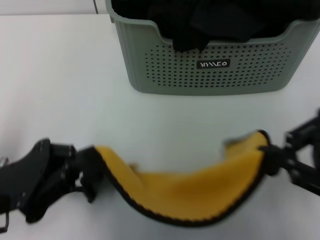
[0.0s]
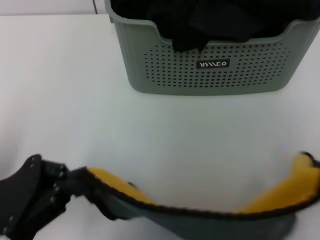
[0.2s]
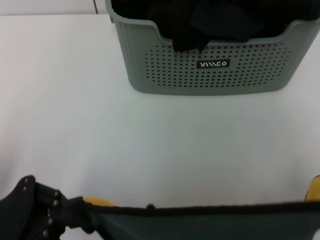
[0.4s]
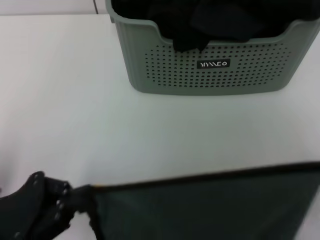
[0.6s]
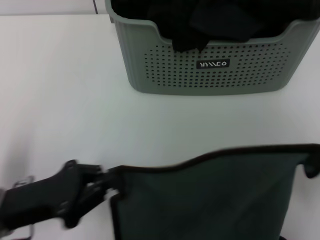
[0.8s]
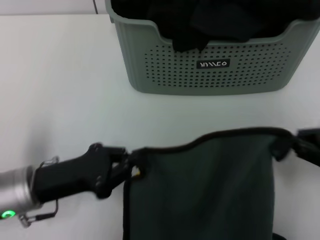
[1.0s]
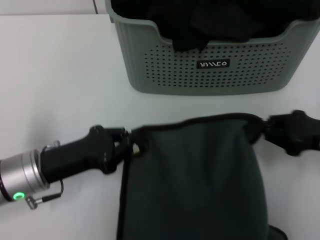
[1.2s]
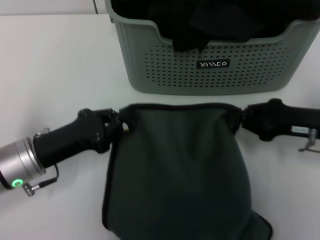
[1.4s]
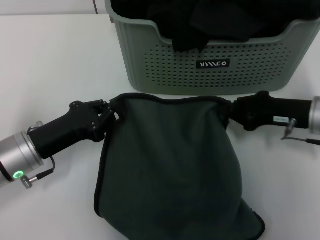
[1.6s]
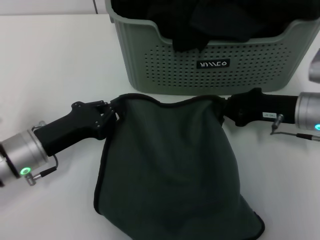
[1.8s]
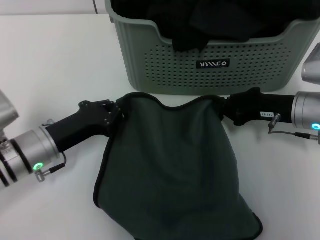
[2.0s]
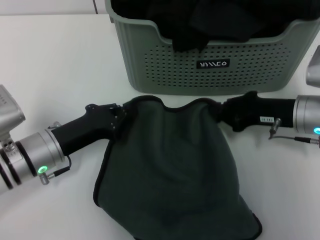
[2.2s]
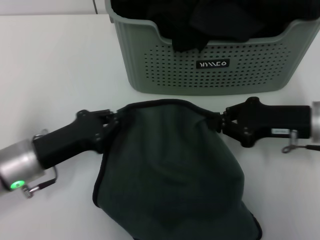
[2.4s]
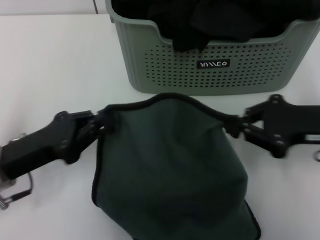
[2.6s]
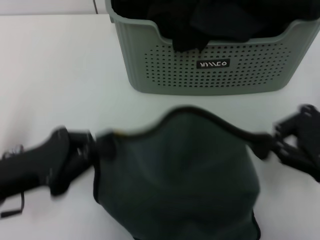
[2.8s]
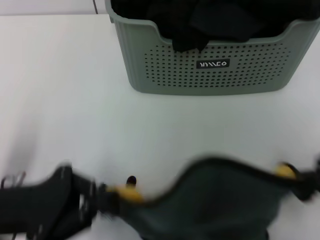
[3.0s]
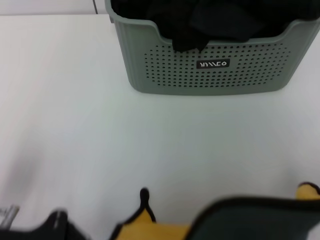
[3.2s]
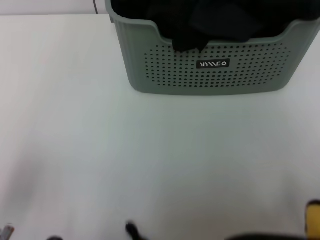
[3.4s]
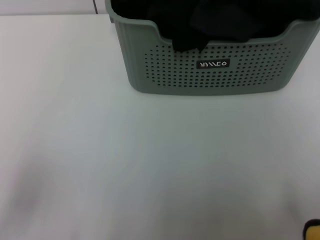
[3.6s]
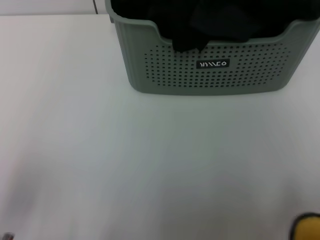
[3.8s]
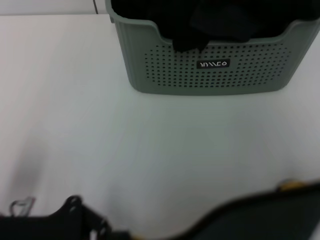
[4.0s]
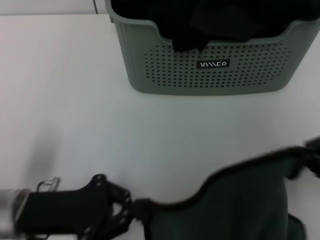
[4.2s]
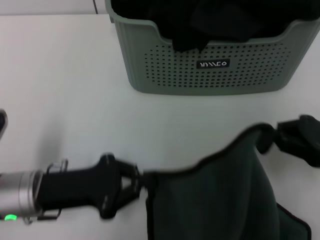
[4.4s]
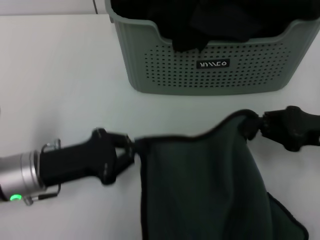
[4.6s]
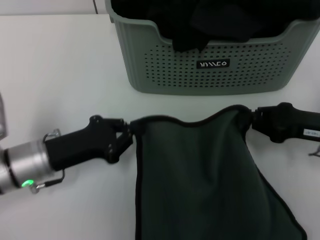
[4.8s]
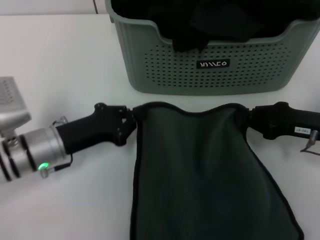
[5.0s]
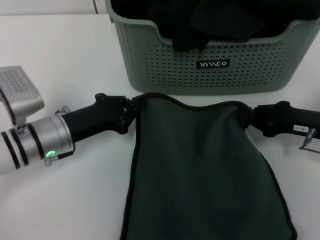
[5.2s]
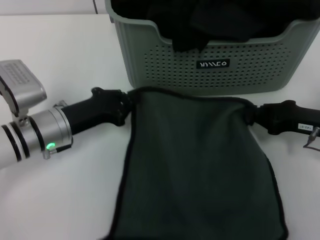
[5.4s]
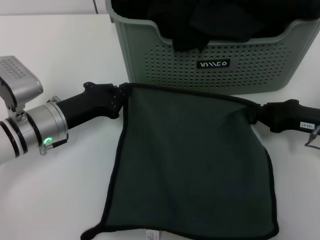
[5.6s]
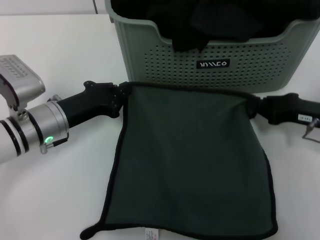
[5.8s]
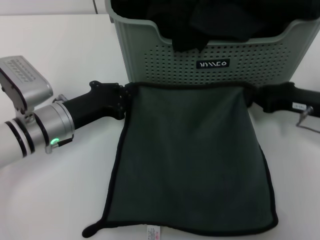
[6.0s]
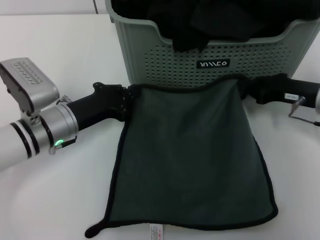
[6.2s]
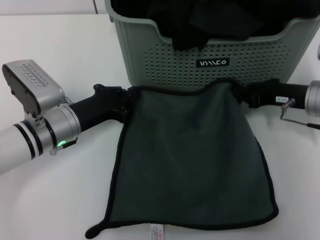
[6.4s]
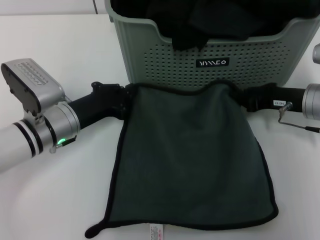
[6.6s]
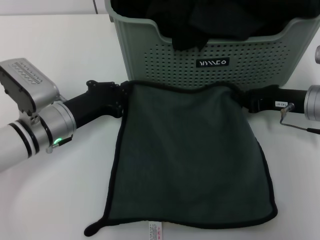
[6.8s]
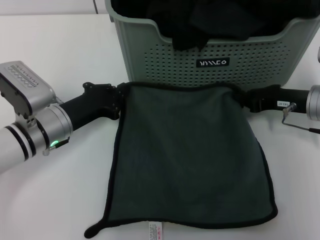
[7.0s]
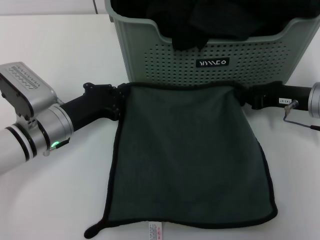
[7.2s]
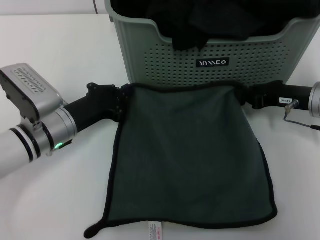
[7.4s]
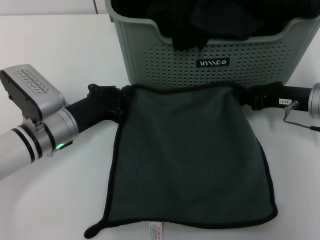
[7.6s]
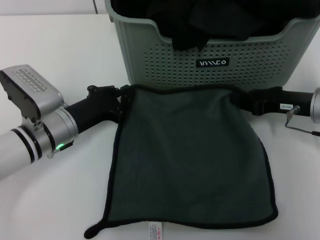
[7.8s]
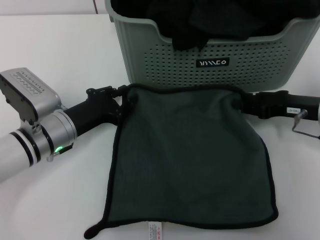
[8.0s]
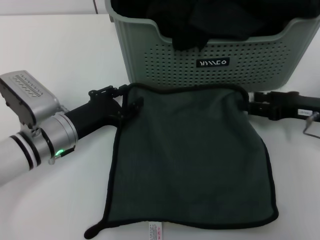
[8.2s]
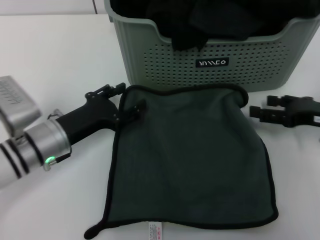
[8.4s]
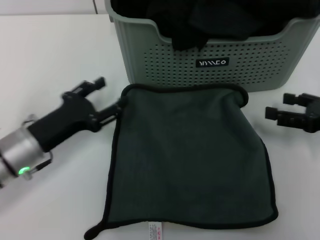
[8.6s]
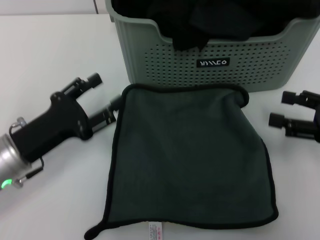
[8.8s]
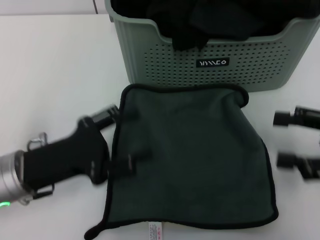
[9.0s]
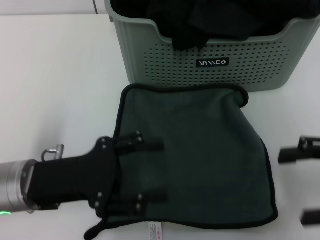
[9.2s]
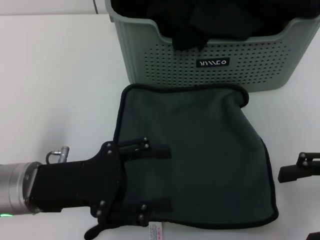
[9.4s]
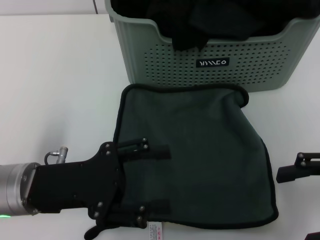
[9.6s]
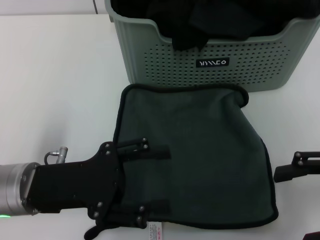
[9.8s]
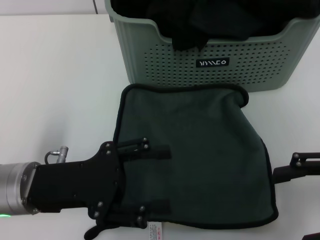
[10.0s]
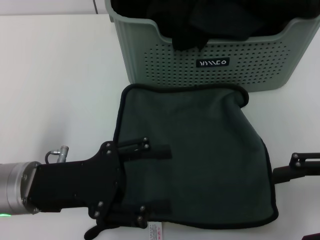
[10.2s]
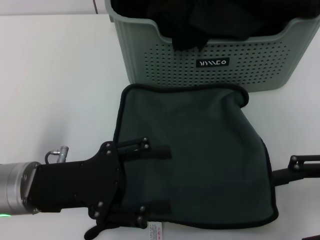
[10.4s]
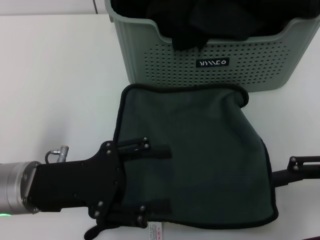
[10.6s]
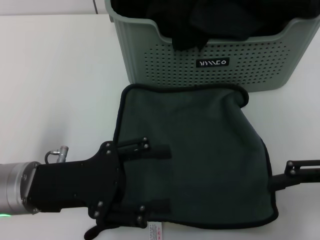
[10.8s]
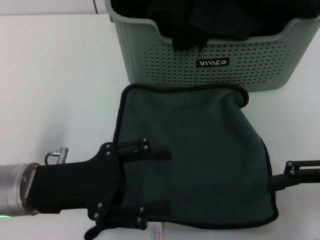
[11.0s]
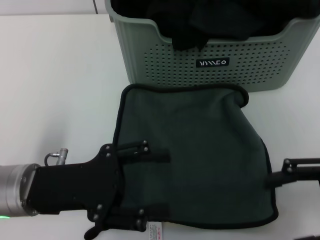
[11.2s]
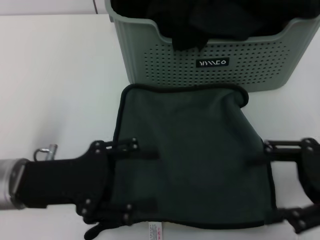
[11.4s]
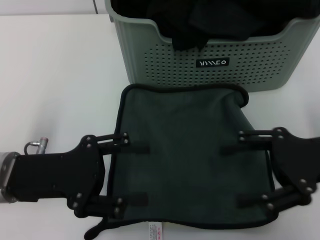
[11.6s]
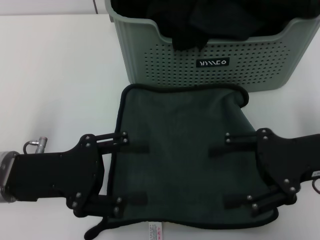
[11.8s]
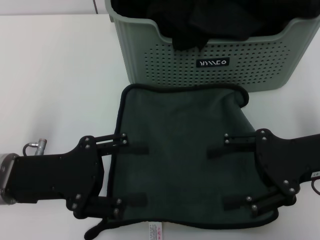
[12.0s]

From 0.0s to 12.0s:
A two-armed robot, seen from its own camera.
Task of the whole recording: pick up the towel from the storage box and lay it flat on the table.
Step, from 0.0s to 8.2s: Spread the towel flat with the left gripper.
From 0.0s to 1.6s: The left gripper moves forward and downward, about 10 cm, while the right gripper moves downward and forward, roughly 20 cm.
From 1.6s to 3.0s: The left gripper is displaced backward and upward by approximately 10 cm; the right gripper heads backward, upward and to the right, covering approximately 15 cm.
From 3.0s to 4.4s: The right gripper moves downward, roughly 10 cm, while the left gripper goes backward and returns, about 5 cm each way.
From 4.4s to 6.0s: Both grippers travel together forward, some 10 cm.
From 6.0s to 7.6s: The grippers make only small movements.
From 7.6s to 9.0s: The right gripper shifts roughly 15 cm backward, upward and to the right, and opens its fingers. Meanwhile the left gripper moves backward, about 10 cm, and opens up.
From 10.4s to 12.0s: The right gripper heads to the left, covering about 5 cm.
